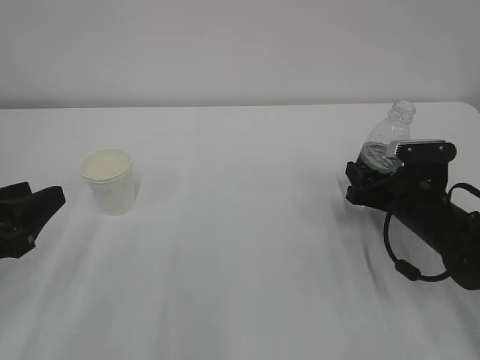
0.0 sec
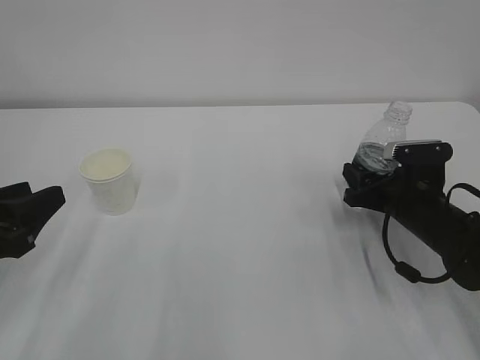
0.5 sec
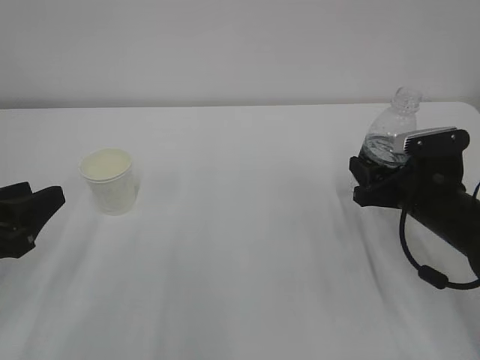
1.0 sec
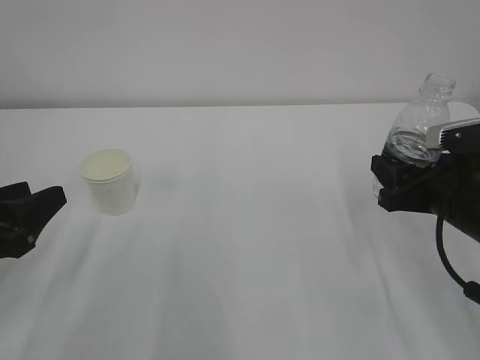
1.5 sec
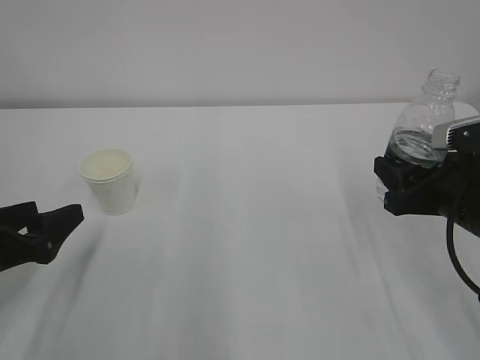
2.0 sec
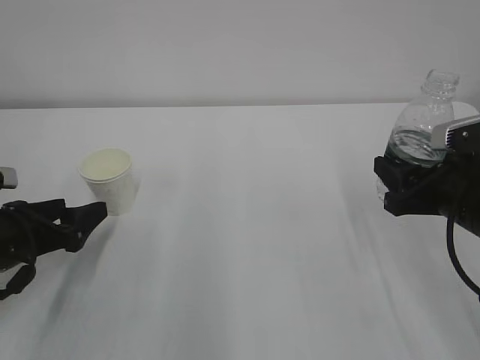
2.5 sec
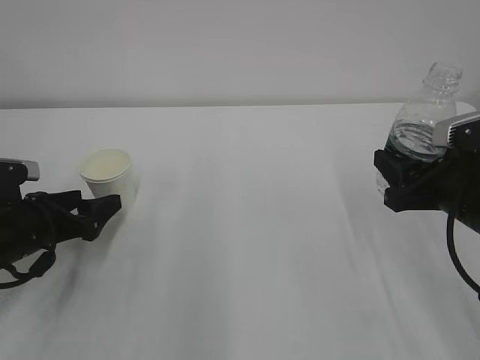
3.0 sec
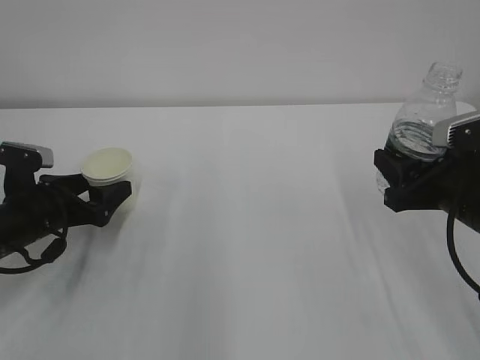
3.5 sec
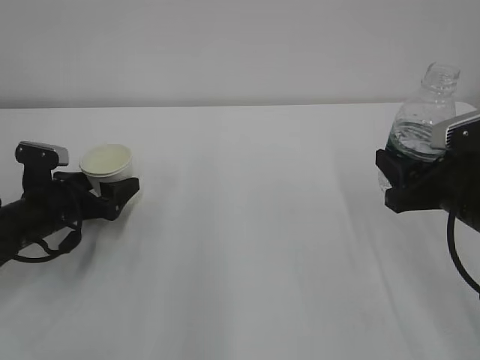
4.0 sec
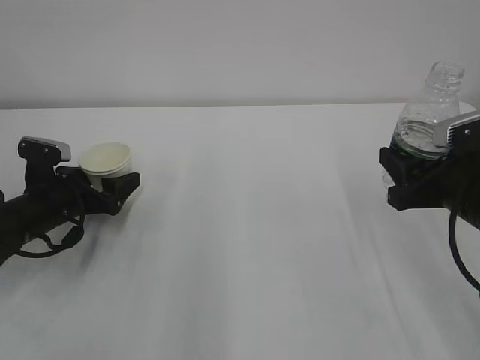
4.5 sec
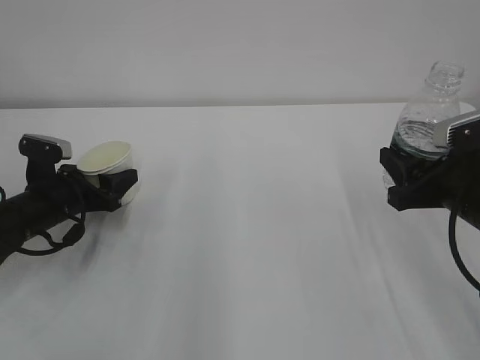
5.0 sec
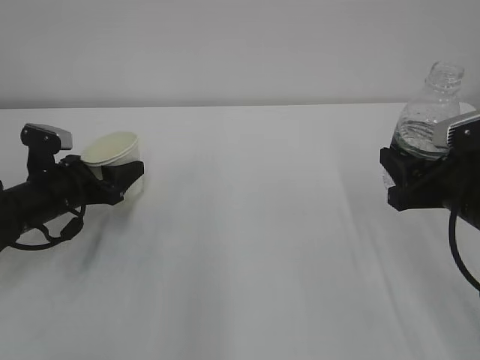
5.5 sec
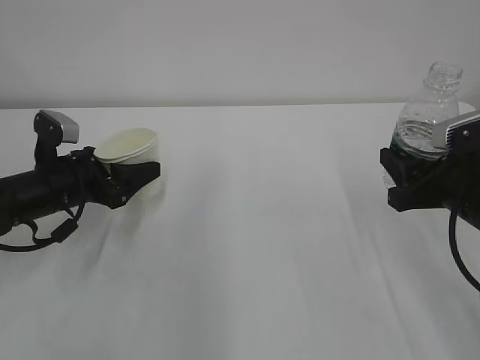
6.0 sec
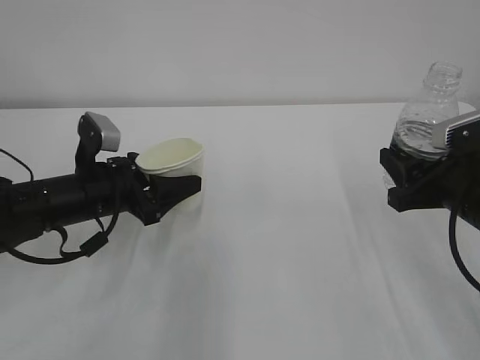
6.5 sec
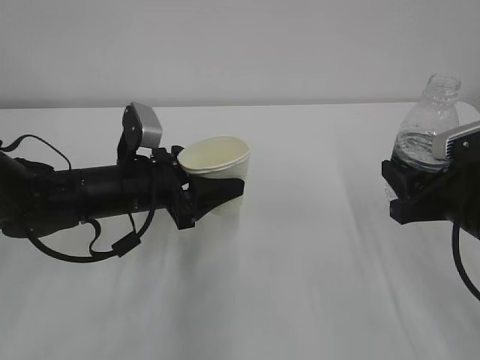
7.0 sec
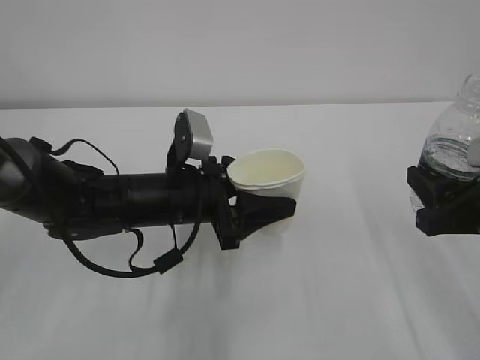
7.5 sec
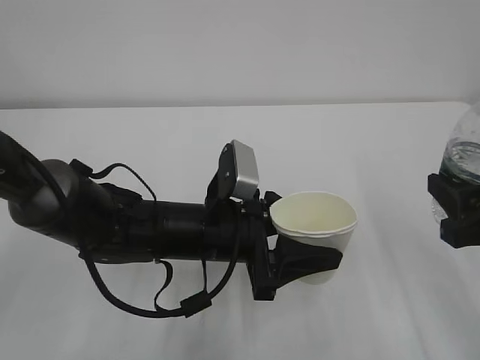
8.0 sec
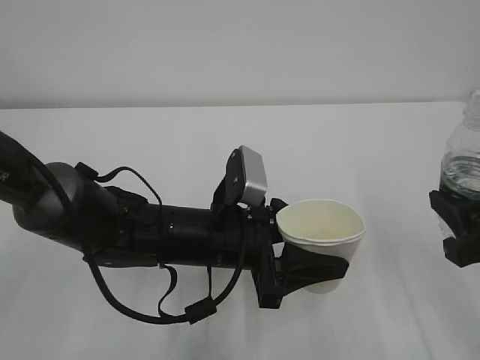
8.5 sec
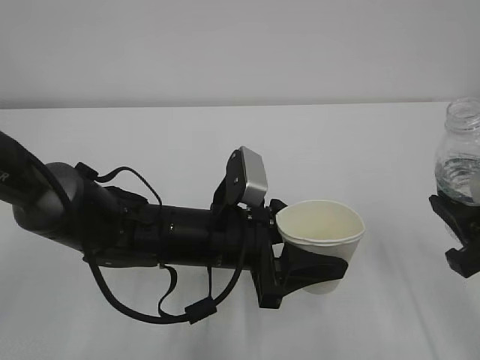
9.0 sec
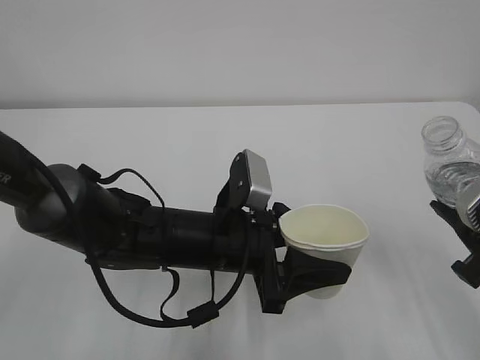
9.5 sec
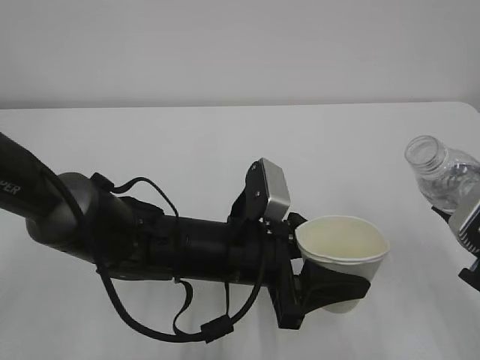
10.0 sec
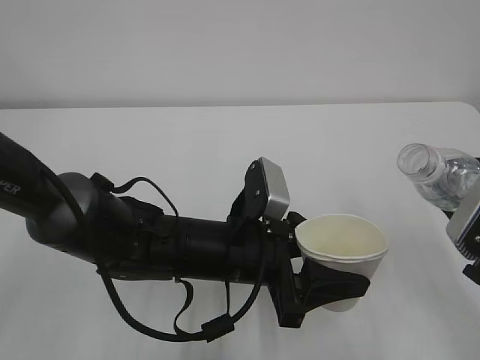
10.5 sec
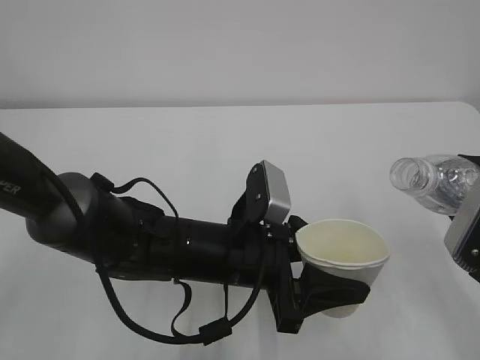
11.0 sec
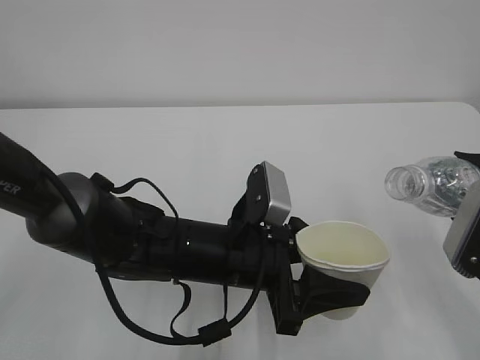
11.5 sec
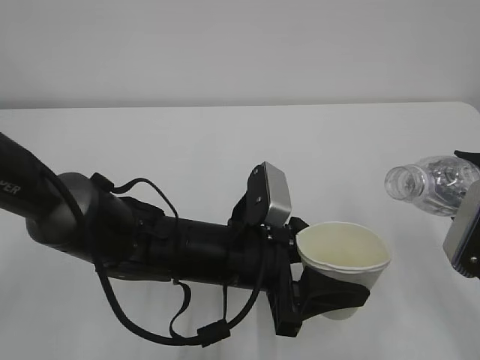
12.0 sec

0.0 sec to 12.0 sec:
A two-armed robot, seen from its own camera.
0.0 sec to 2.0 sec: The left gripper opens its fingers. Meanwhile the right gripper moves upward and backward, about 10 cm.
2.0 sec to 4.0 sec: The left gripper heads forward and downward, covering some 15 cm.
4.0 sec to 6.0 sec: The left gripper moves about 5 cm, and closes.
6.0 sec to 8.0 sec: The right gripper goes roughly 5 cm backward, while the left gripper shifts approximately 20 cm to the right and backward.

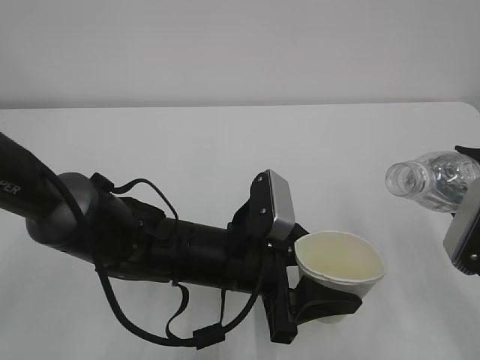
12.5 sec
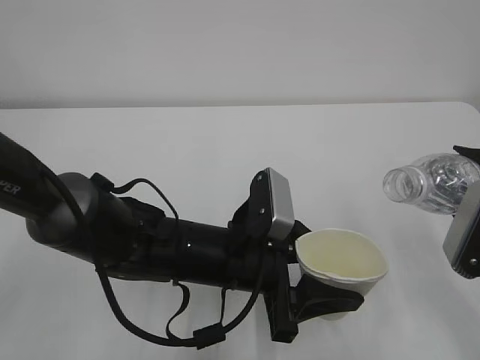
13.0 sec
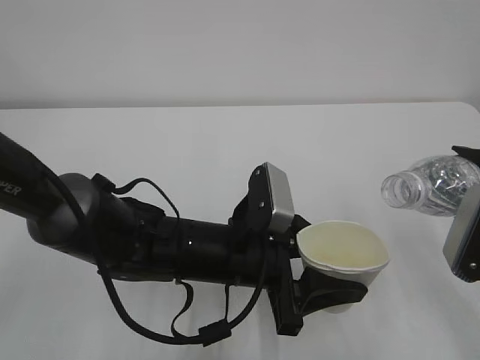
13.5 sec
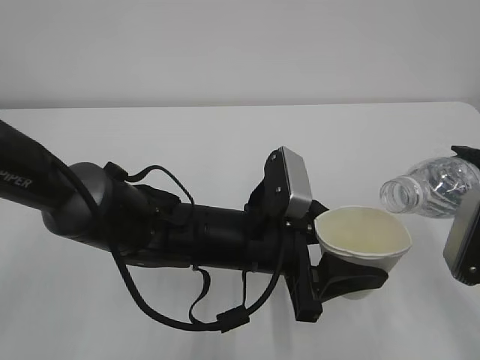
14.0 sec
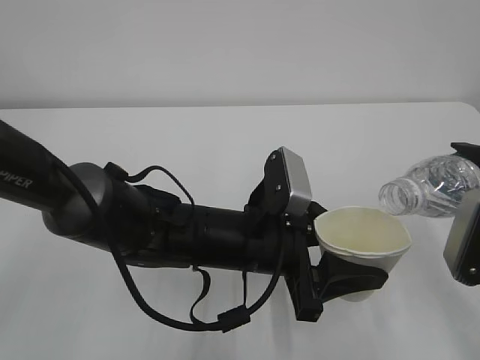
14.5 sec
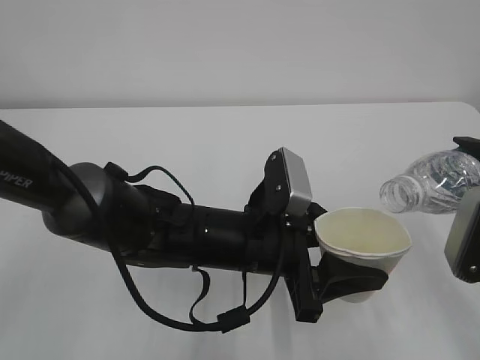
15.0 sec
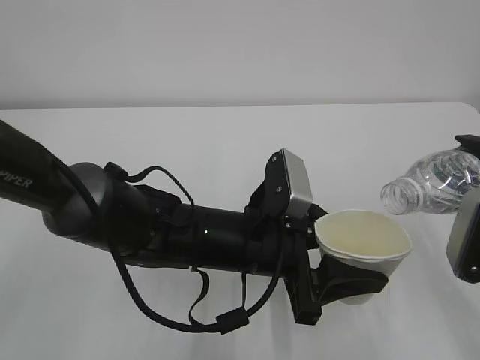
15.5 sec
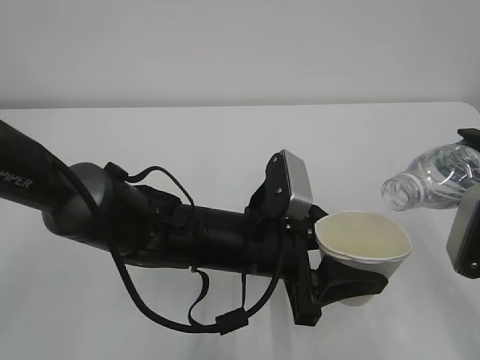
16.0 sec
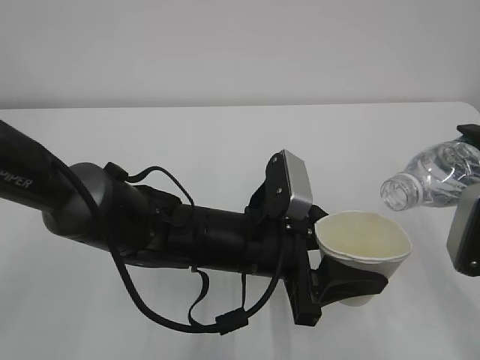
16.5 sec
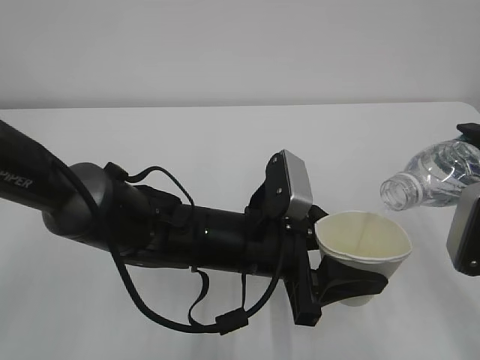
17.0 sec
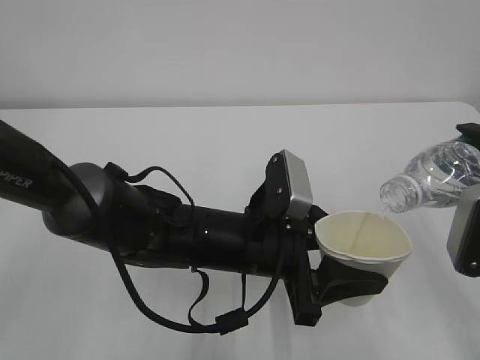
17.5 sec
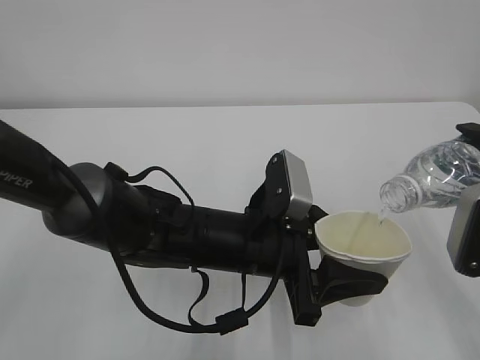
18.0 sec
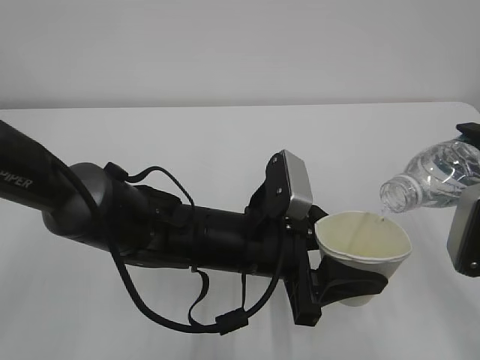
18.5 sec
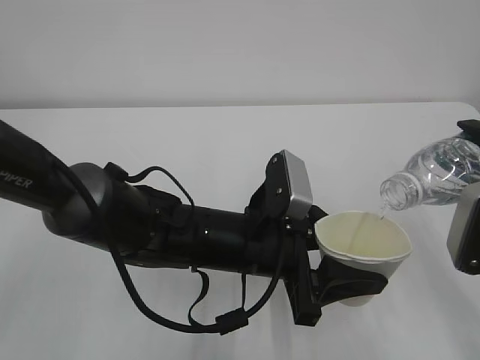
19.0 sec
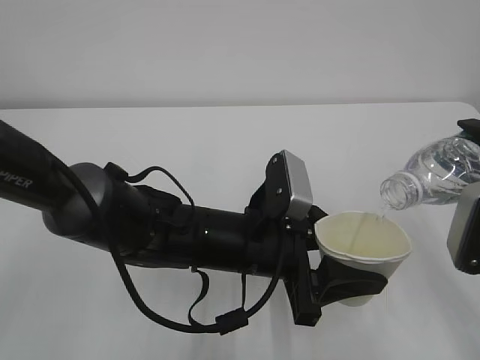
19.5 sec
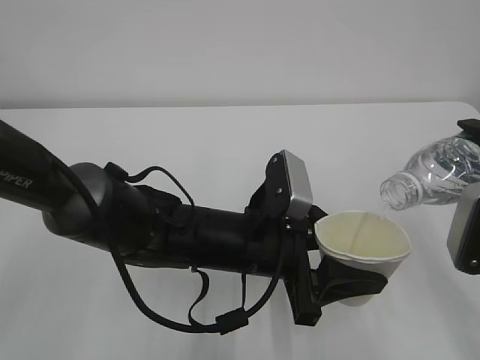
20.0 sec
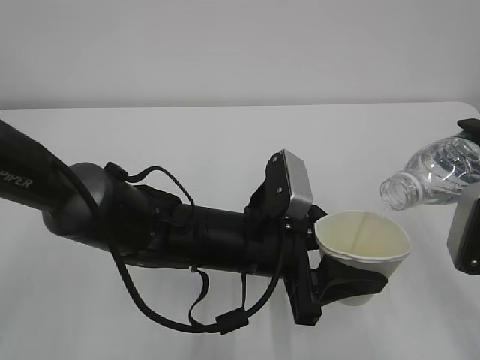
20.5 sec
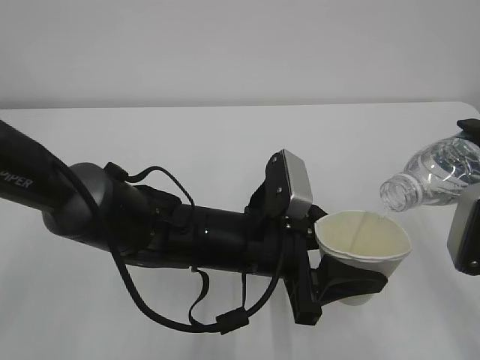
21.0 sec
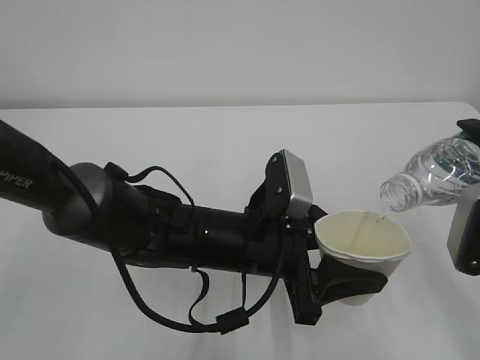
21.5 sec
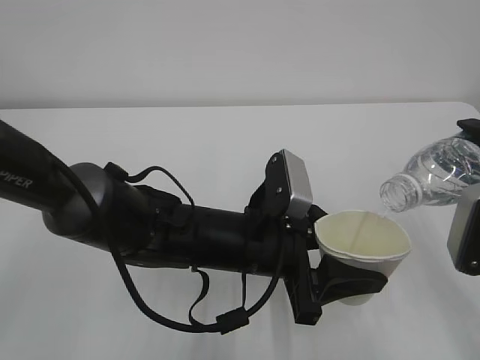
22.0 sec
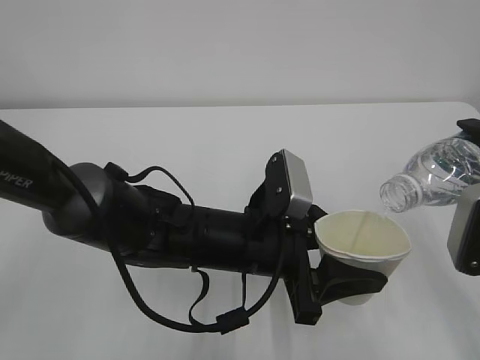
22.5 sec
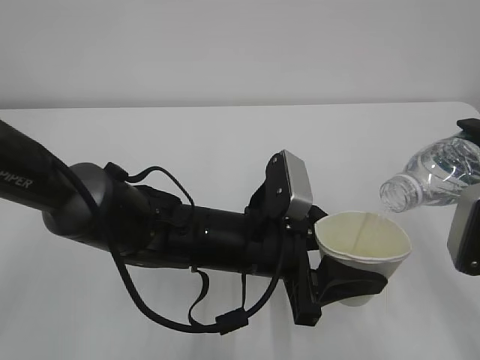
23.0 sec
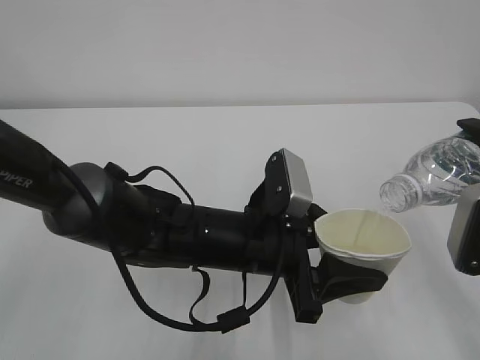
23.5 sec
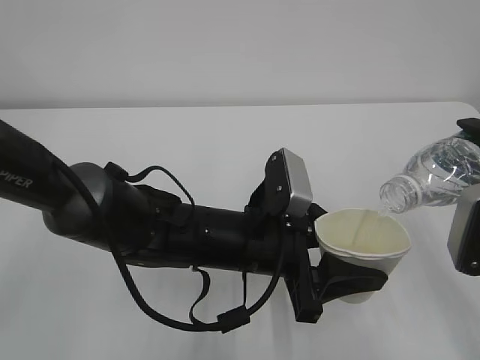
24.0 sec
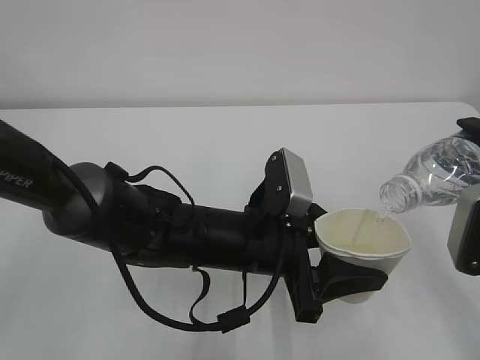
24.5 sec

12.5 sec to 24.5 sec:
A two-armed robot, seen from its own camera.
12.5 sec to 16.5 sec: The grippers move only a little.
16.5 sec to 24.5 sec: Both grippers stay about where they are.

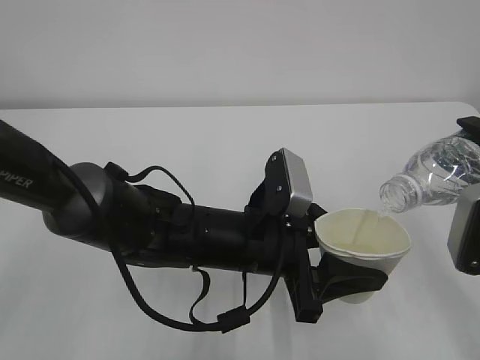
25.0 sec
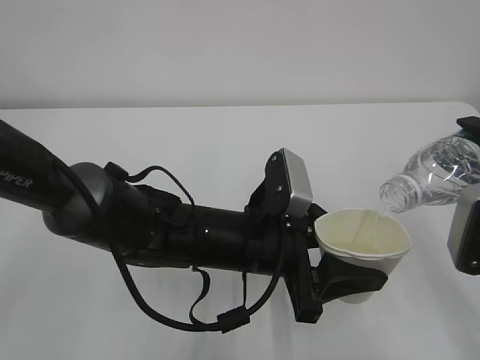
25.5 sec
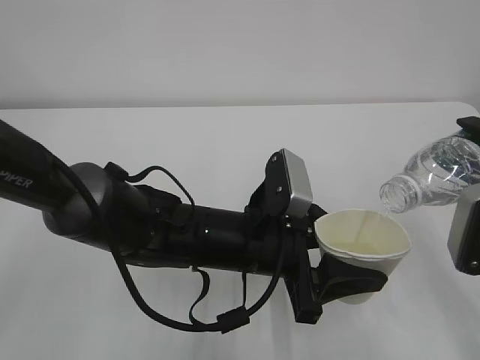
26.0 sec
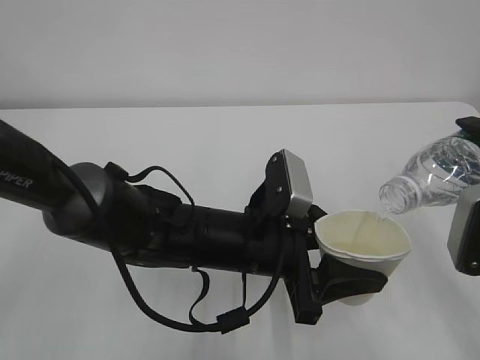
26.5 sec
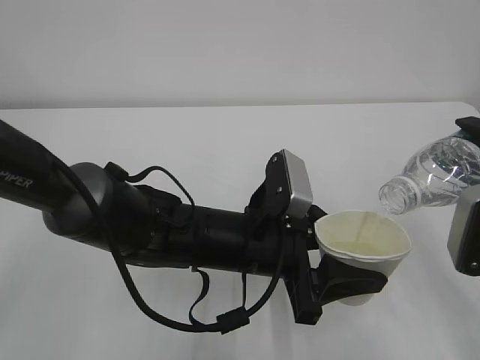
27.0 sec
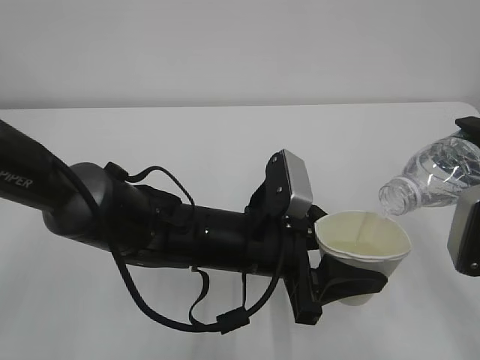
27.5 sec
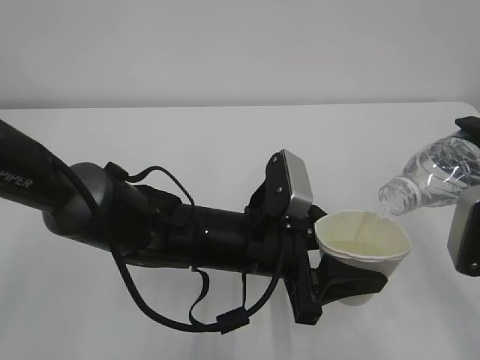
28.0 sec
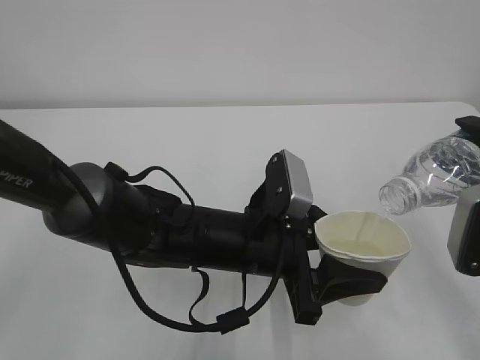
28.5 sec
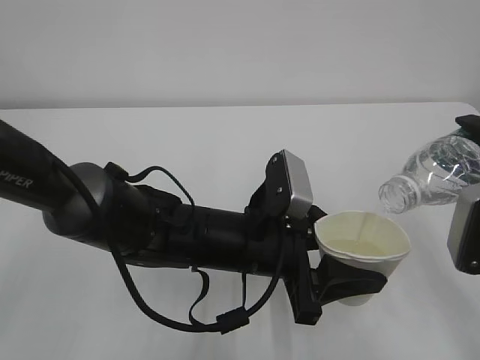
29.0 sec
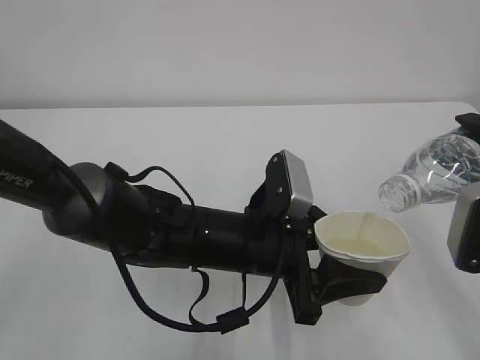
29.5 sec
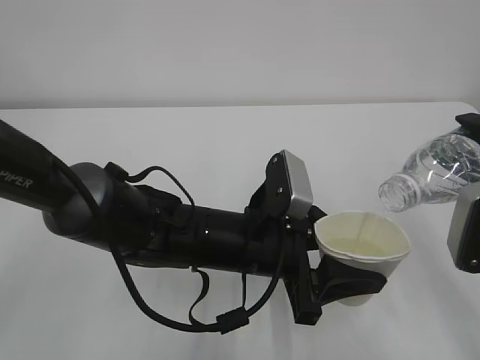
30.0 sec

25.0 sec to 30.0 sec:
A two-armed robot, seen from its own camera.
25.0 sec to 30.0 sec: Neither gripper changes place.
